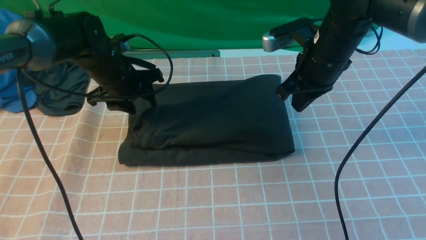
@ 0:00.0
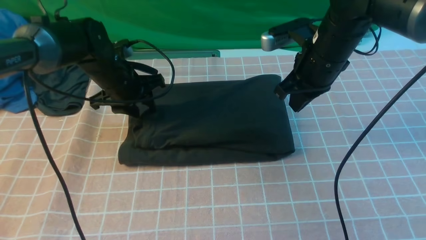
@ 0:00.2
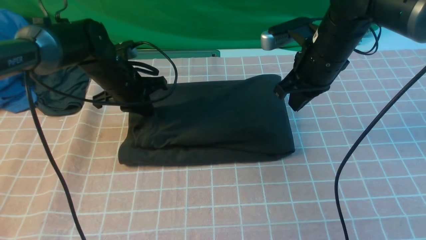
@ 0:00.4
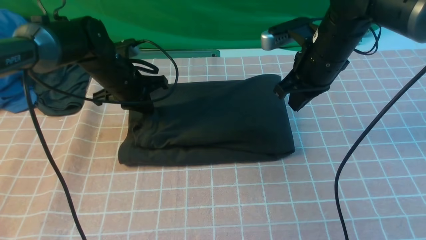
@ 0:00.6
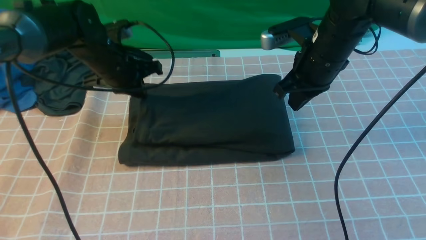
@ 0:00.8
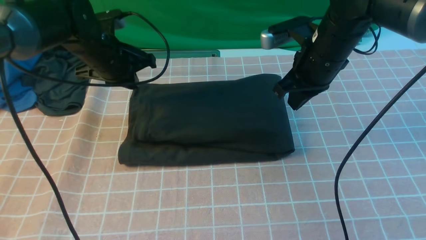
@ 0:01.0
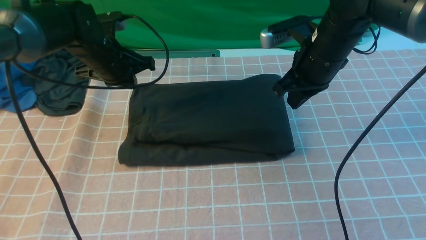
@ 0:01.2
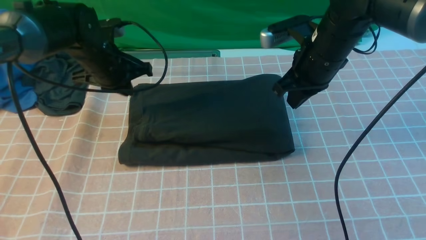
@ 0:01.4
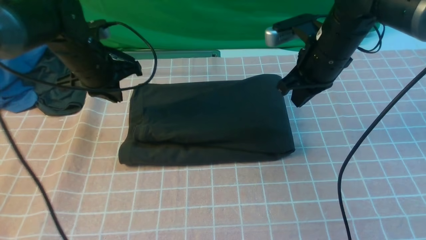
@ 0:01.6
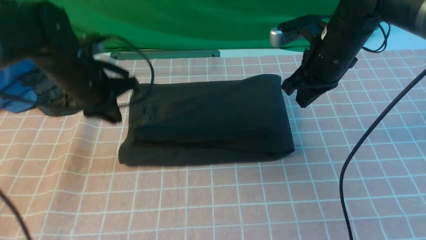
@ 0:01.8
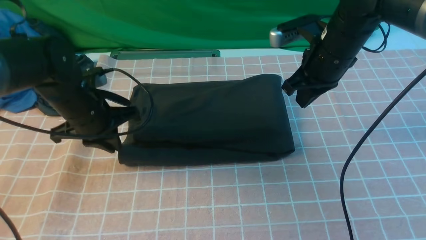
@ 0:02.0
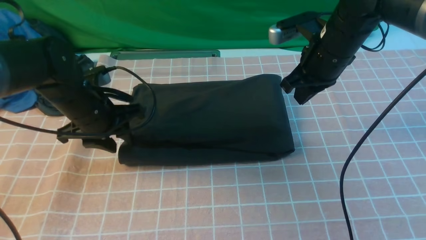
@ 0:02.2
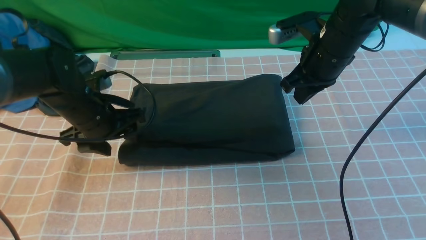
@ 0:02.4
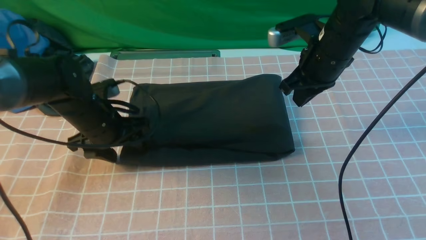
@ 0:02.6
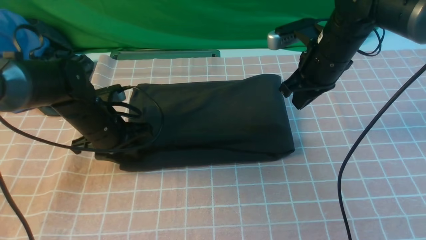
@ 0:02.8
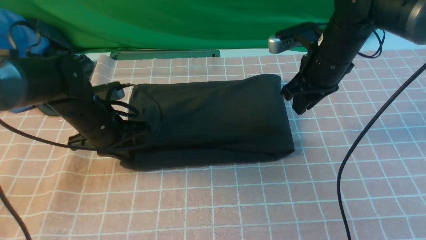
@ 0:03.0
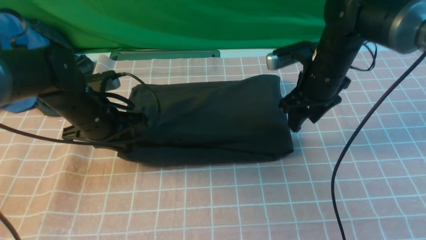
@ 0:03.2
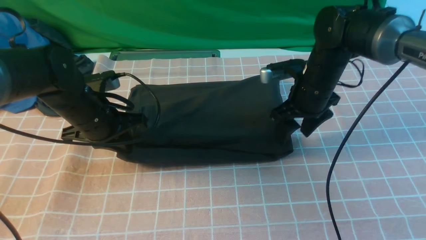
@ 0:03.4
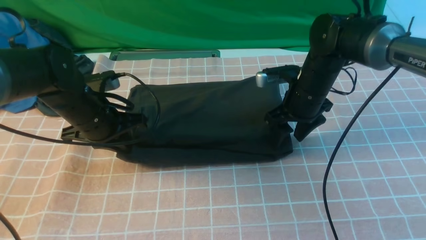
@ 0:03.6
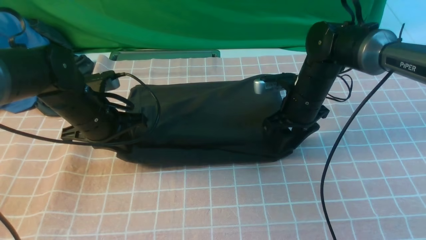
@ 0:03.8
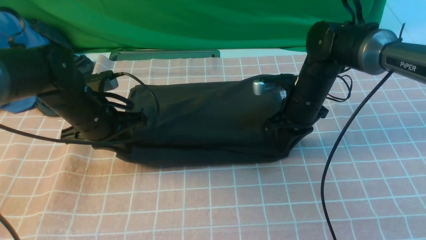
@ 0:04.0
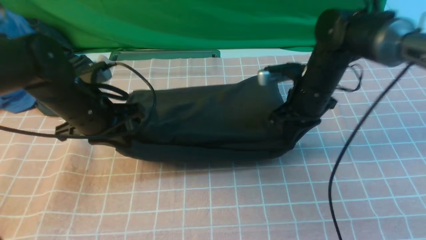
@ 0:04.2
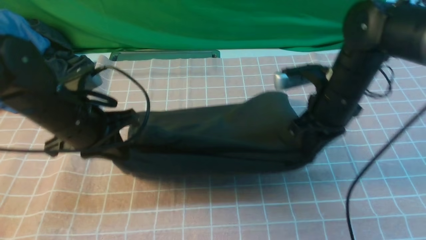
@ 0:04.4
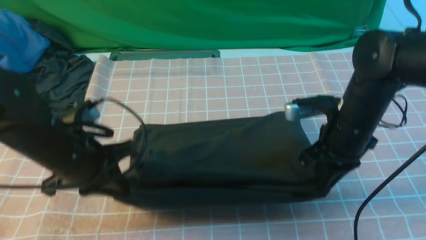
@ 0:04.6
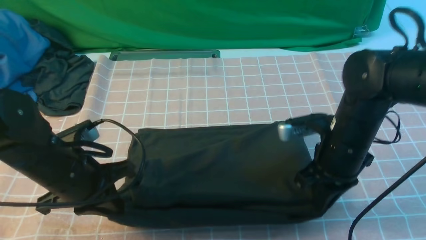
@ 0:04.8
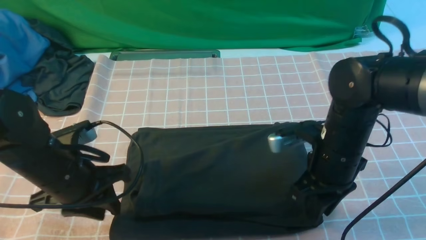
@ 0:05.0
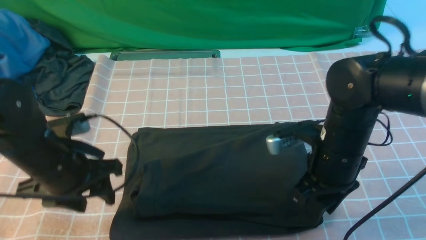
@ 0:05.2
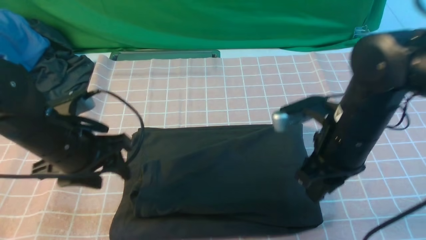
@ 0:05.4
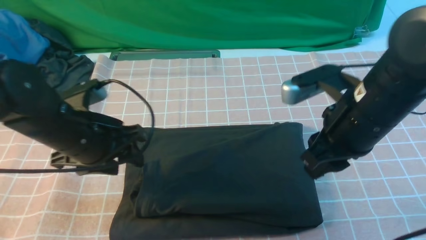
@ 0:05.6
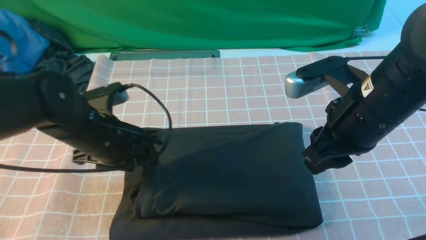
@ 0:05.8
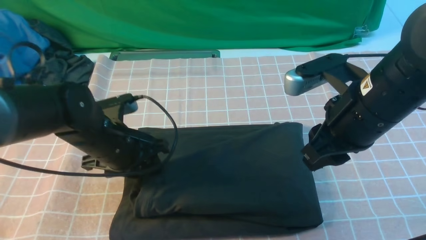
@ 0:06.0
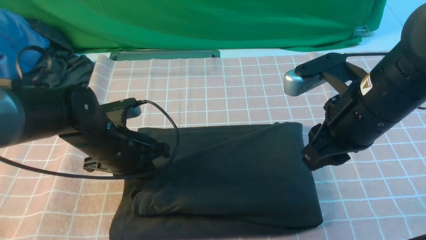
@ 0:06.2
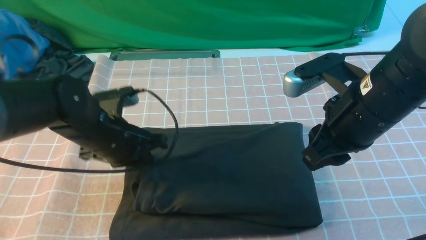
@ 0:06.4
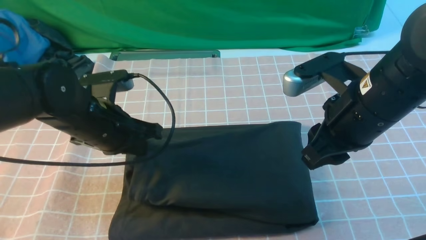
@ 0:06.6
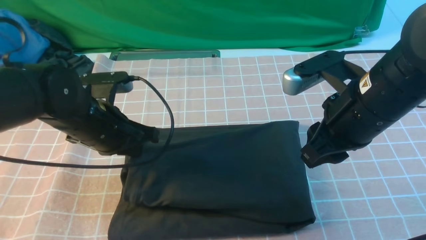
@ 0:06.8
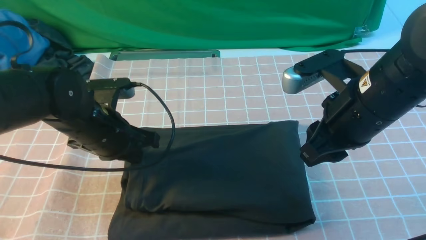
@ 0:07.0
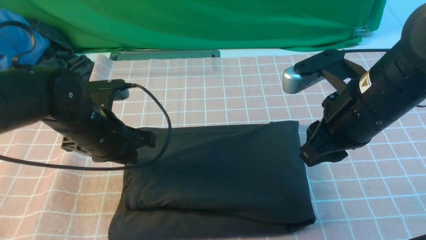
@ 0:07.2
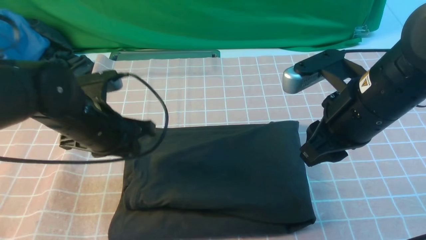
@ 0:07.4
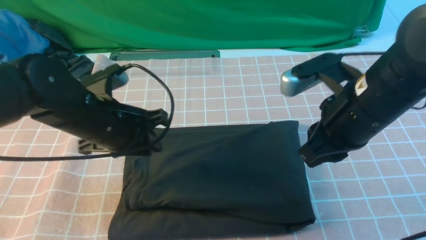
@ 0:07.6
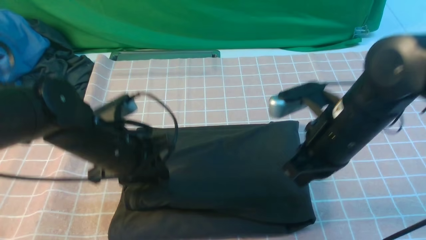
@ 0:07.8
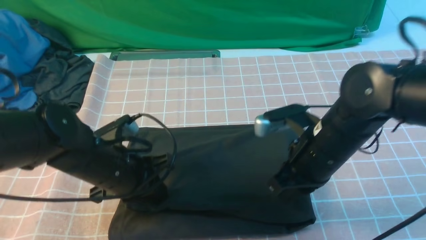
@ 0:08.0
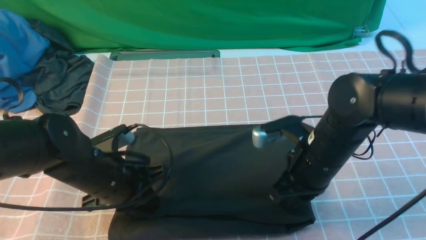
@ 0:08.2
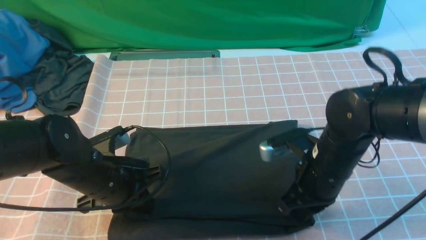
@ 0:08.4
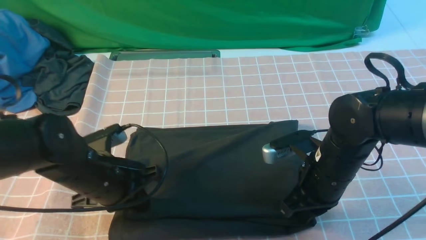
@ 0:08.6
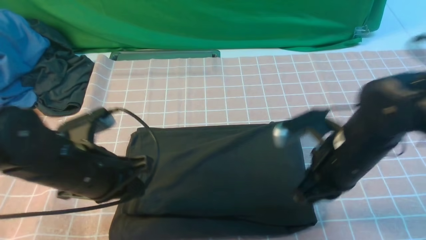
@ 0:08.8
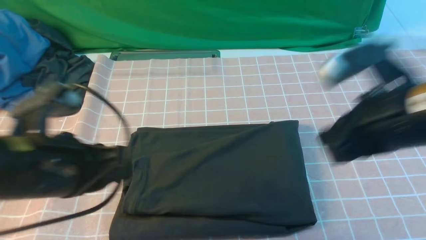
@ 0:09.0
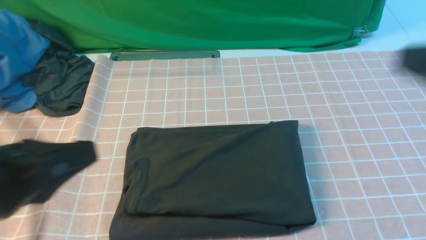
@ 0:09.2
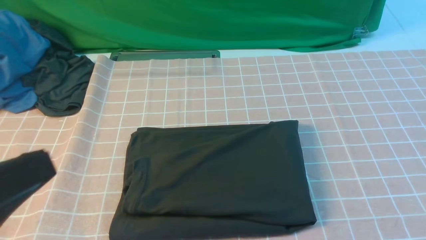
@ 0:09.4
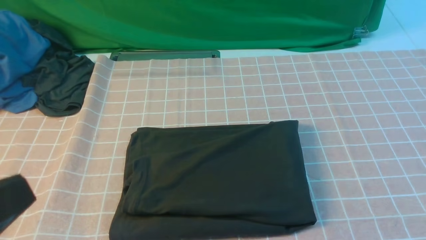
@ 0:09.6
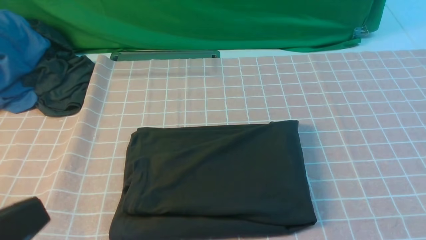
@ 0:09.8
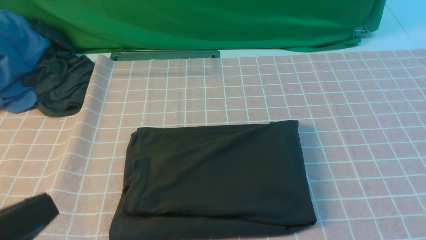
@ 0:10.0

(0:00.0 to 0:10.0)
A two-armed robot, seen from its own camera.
0:00.0 - 0:01.4: The left gripper closes up.
0:01.4 - 0:02.8: The left gripper shifts about 10 cm backward and downward, and opens its fingers.
0:02.8 - 0:04.2: The left gripper heads upward, covering roughly 5 cm, and closes its fingers. Meanwhile the right gripper moves downward, roughly 5 cm, and opens, then closes once more.
0:04.2 - 0:05.8: The left gripper opens up. Meanwhile the right gripper is displaced backward and upward by some 15 cm, and opens up.
0:05.8 - 0:07.2: The left gripper closes up.
0:07.2 - 0:08.6: The left gripper shifts some 5 cm backward. Meanwhile the right gripper travels downward by some 10 cm, and closes up.
0:08.6 - 0:10.0: The left gripper goes about 25 cm backward and upward; the right gripper travels backward, upward and to the right by some 30 cm.

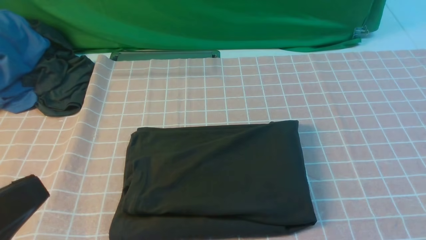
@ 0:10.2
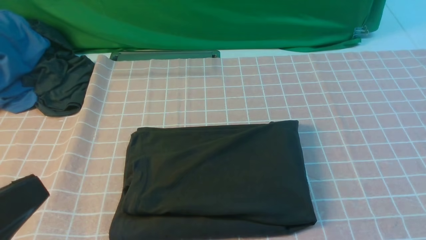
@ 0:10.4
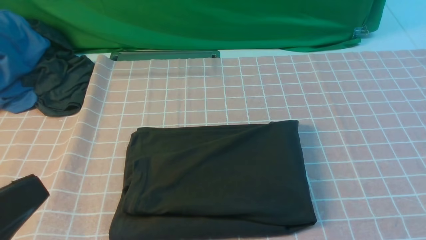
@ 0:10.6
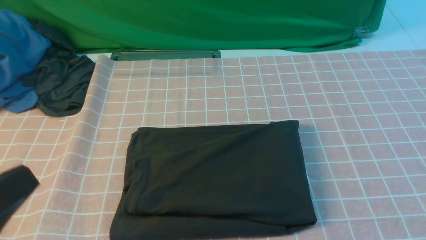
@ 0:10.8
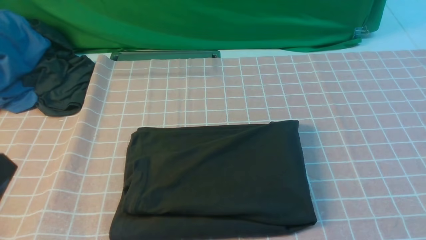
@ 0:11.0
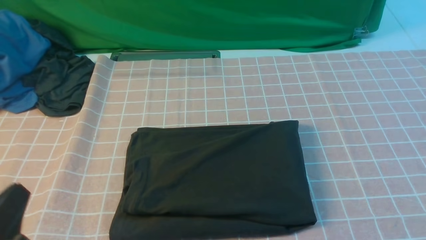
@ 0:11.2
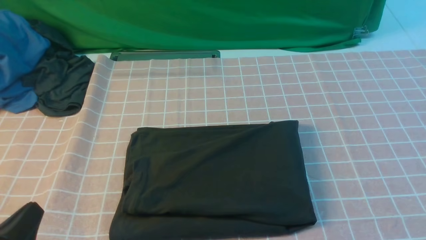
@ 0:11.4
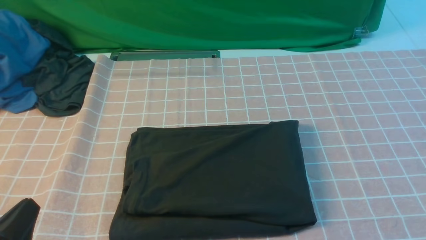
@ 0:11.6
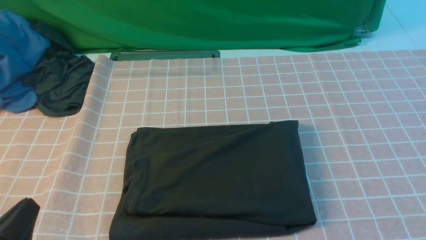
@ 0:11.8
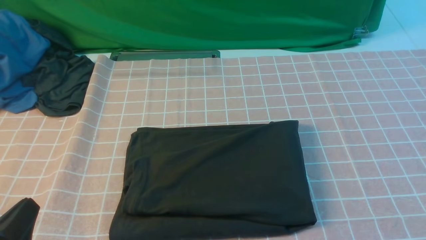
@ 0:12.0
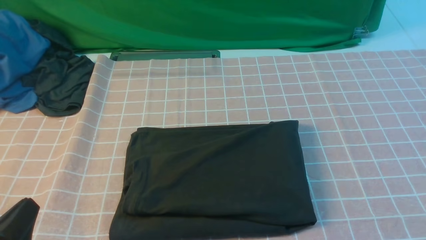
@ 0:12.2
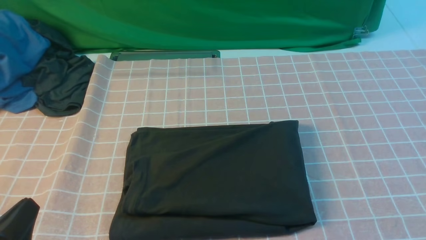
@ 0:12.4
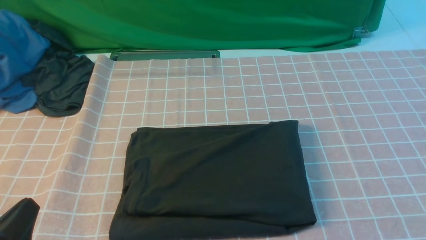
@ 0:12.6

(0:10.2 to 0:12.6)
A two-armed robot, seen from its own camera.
0:10.2 - 0:11.4: The left gripper travels downward by approximately 15 cm.
